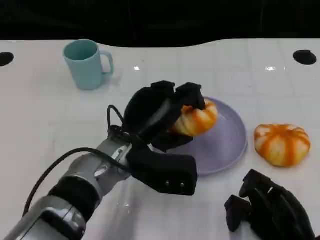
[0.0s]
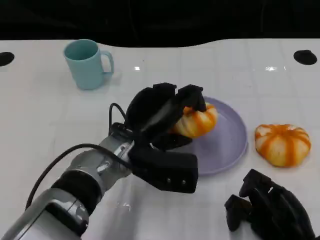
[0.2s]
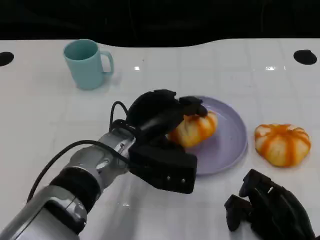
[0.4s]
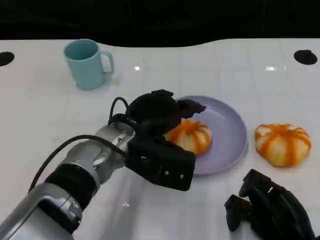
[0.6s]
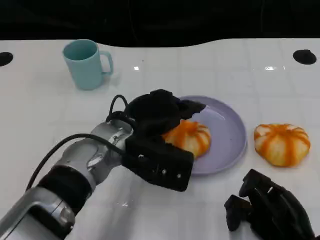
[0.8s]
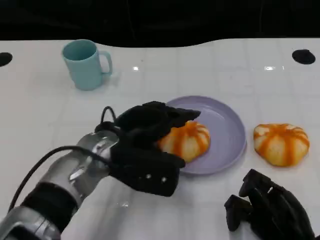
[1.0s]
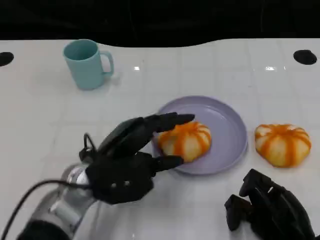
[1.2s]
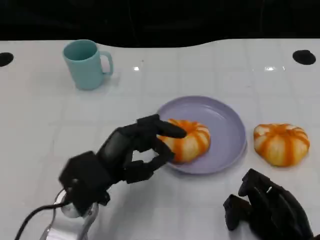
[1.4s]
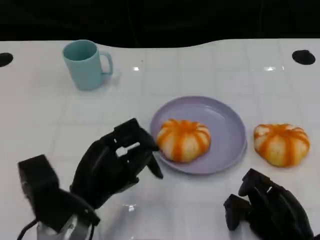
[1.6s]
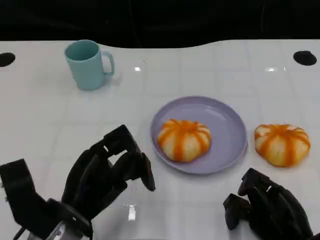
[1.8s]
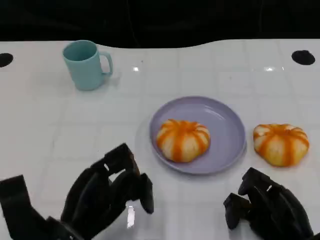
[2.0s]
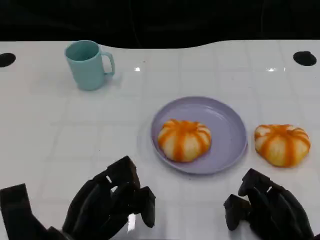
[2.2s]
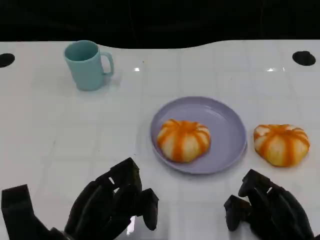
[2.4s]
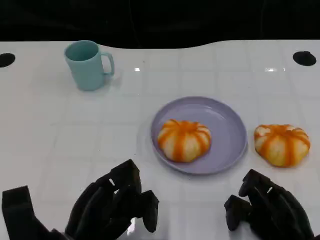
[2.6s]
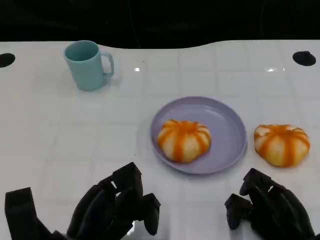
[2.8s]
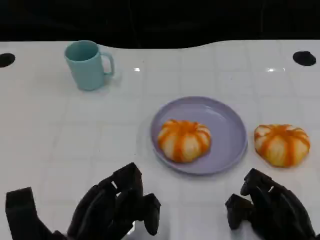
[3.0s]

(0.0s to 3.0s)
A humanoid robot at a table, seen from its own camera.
Task of the whole recording: Grasp the bread from the table and place it into the plate.
0.0s - 1.6s: The left hand moves to the left and backward, approximately 10 cm.
1.6s - 3.0s: There are only small adjustments of the hands.

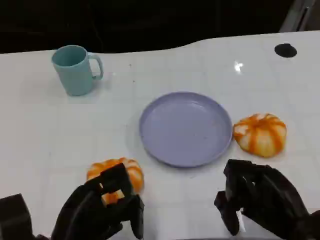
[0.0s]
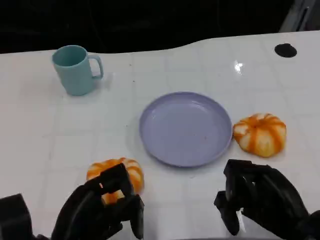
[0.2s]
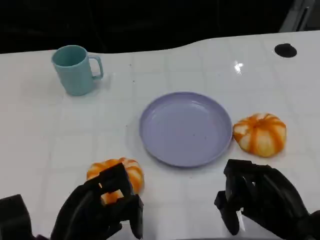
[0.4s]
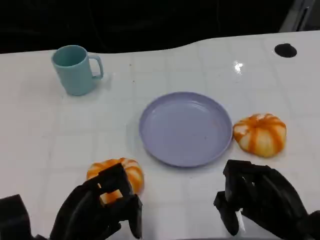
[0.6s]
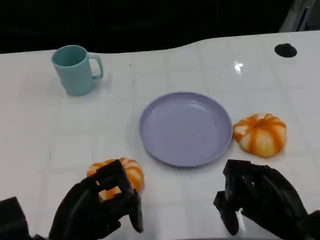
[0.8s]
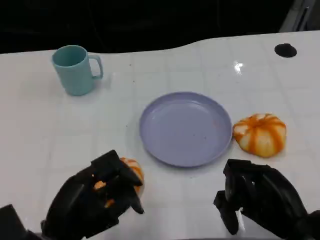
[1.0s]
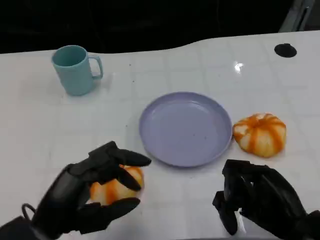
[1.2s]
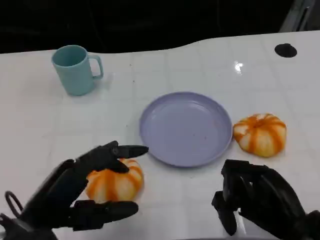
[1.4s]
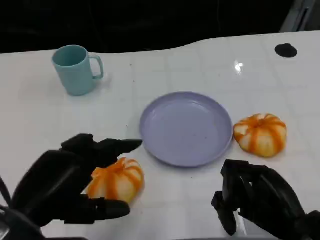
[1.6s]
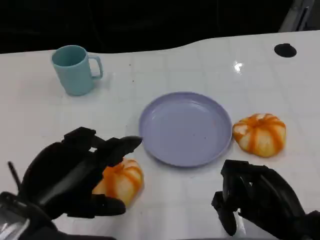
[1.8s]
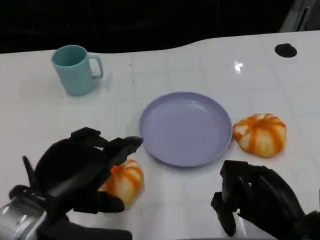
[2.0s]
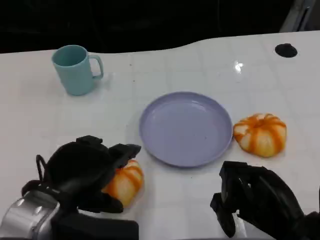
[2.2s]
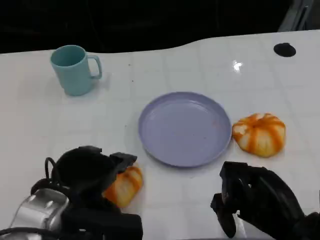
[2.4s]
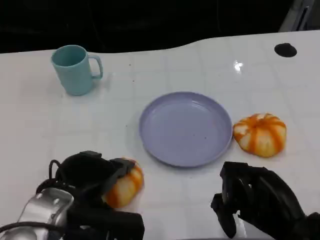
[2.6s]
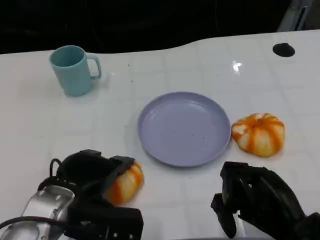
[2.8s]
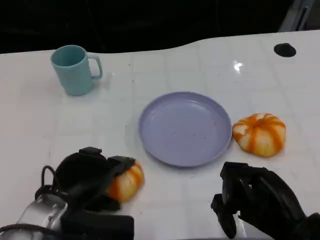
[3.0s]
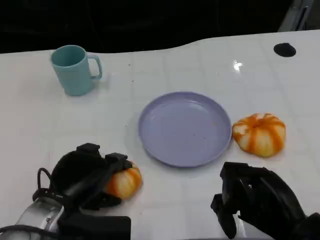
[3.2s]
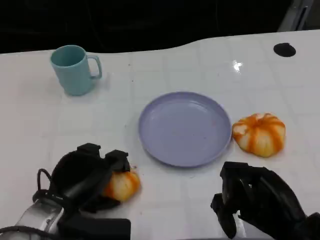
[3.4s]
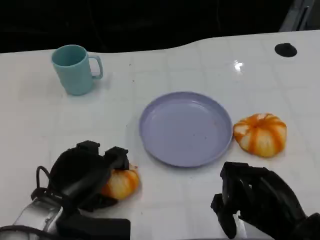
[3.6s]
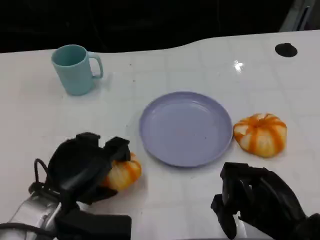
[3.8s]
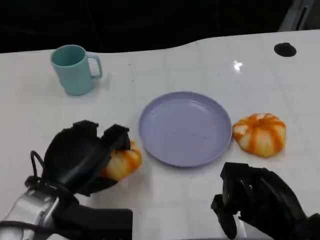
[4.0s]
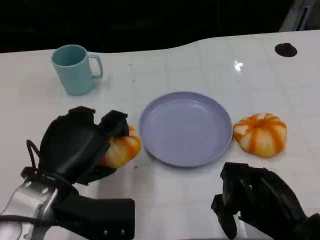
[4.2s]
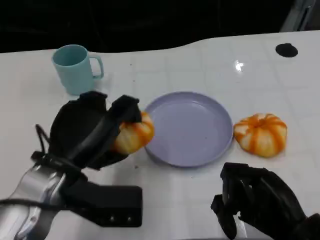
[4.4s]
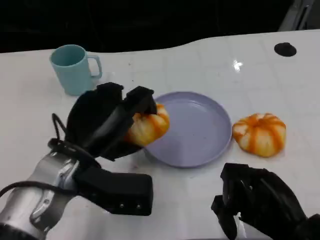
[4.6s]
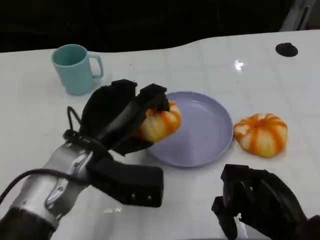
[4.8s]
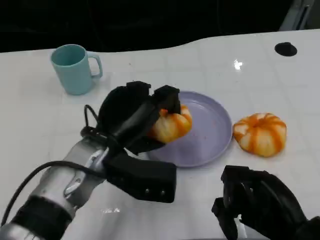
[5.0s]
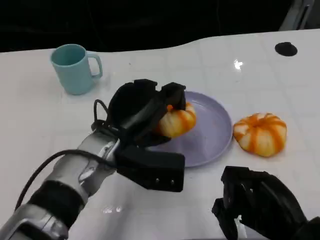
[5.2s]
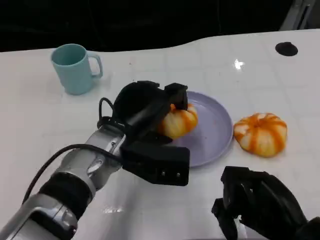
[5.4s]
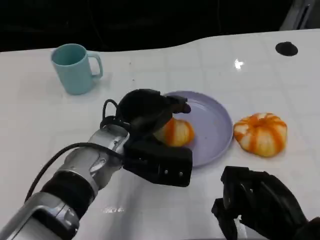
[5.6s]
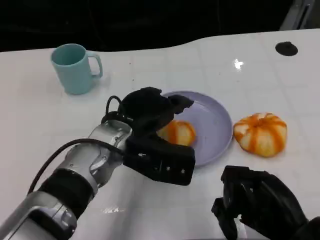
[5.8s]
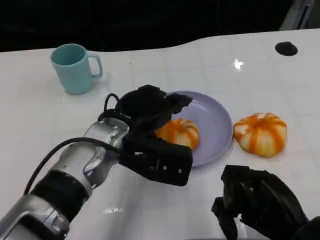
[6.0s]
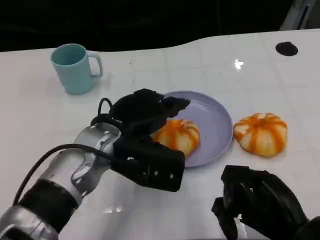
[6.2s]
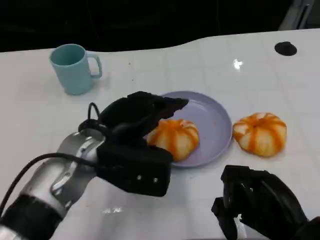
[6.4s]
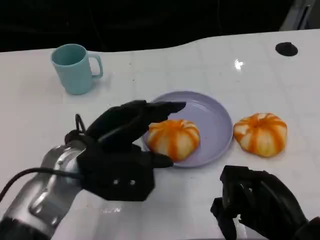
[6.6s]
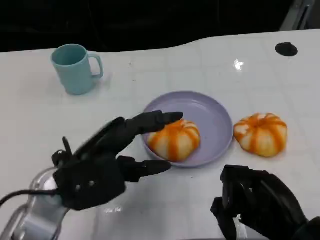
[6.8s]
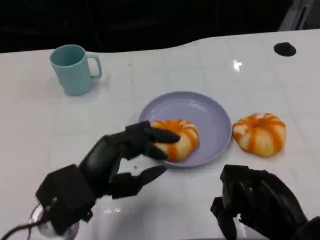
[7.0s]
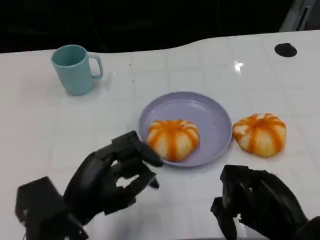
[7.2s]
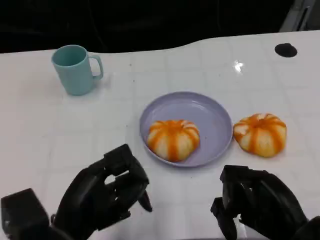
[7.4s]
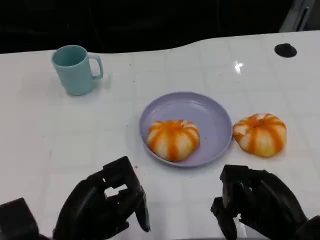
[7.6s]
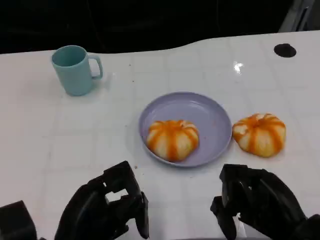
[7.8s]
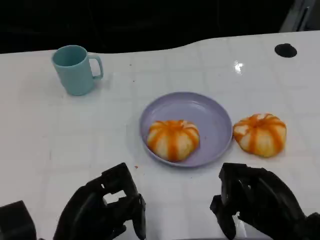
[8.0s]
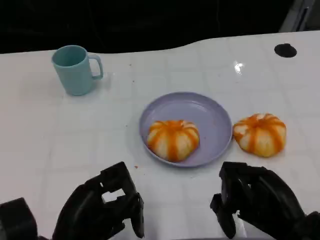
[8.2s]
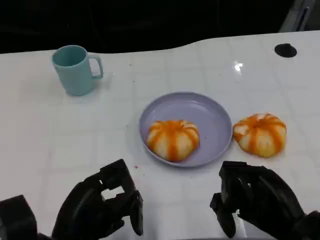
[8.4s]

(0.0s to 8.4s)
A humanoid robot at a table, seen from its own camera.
Task of the whole recording: Grasp the bread from the table and place it into the plate.
0.0s - 1.4s: The left hand heads upward, covering roughly 5 cm.
1.4s - 2.8s: The left hand heads forward, covering about 5 cm.
4.2s - 5.6s: The left hand heads to the right and forward, covering about 10 cm.
5.6s - 7.0s: The left hand travels backward and to the left by roughly 15 cm.
7.0s - 8.4s: The left hand changes place by some 5 cm.

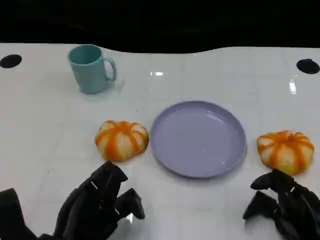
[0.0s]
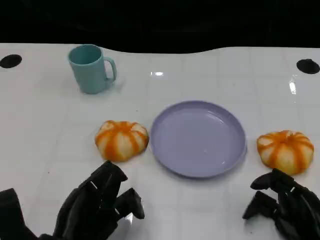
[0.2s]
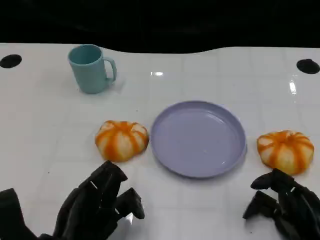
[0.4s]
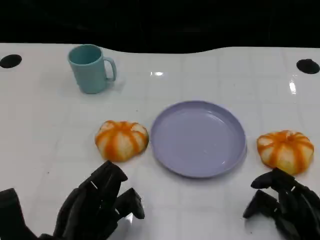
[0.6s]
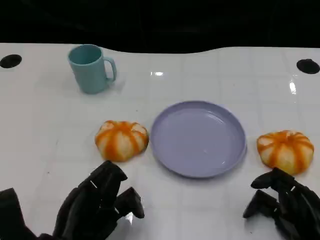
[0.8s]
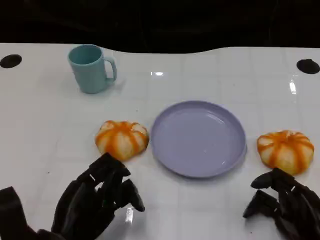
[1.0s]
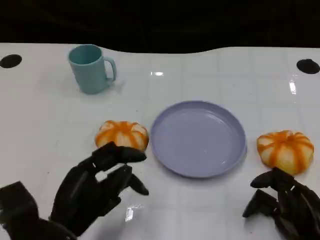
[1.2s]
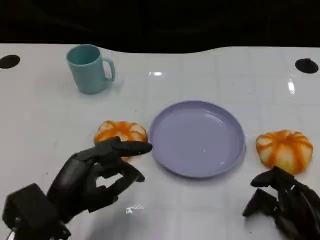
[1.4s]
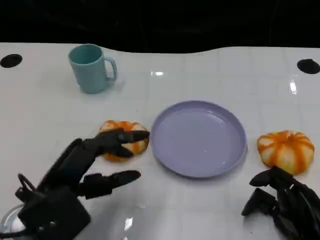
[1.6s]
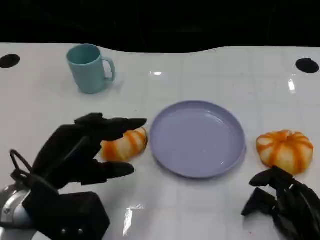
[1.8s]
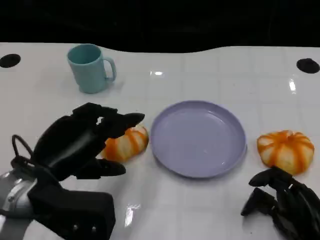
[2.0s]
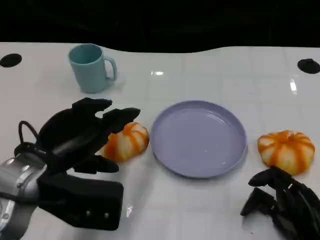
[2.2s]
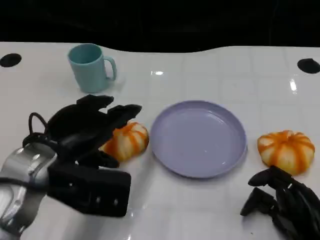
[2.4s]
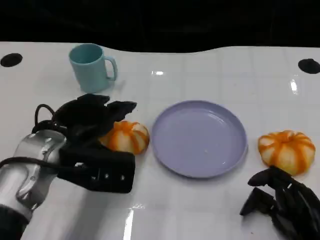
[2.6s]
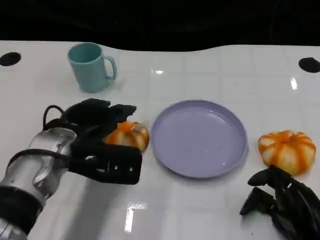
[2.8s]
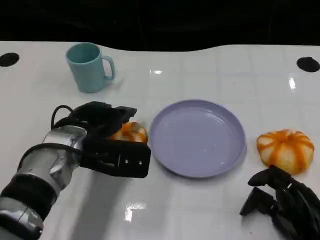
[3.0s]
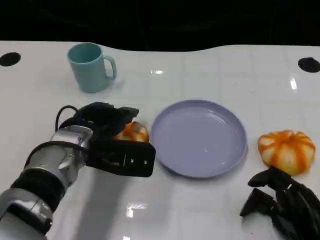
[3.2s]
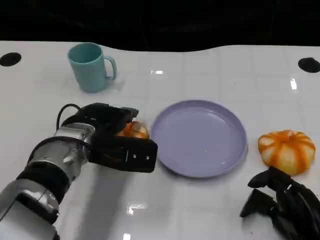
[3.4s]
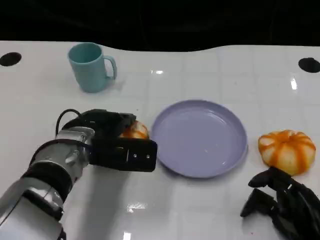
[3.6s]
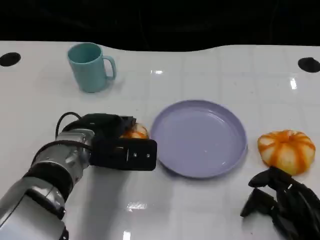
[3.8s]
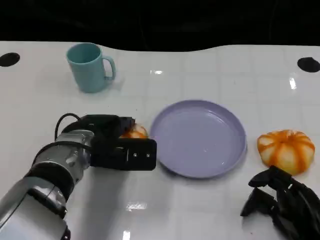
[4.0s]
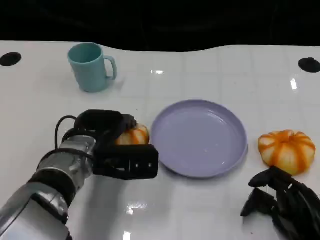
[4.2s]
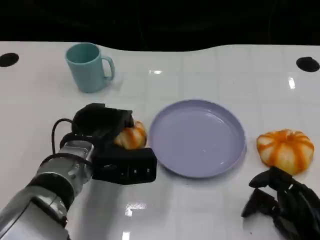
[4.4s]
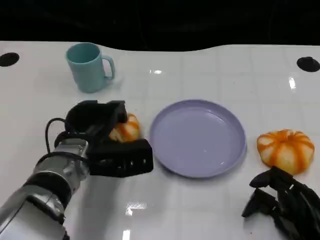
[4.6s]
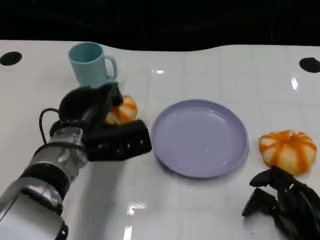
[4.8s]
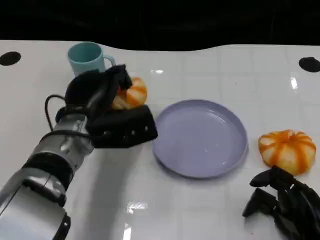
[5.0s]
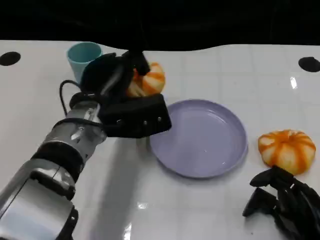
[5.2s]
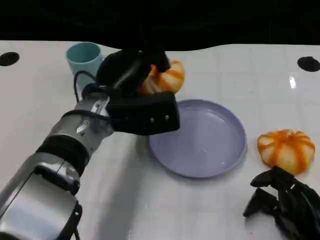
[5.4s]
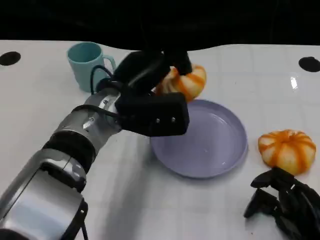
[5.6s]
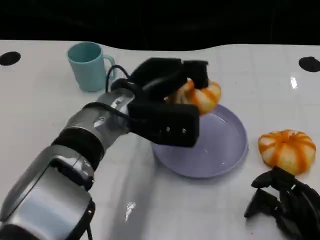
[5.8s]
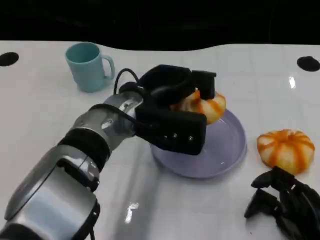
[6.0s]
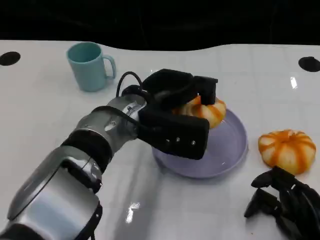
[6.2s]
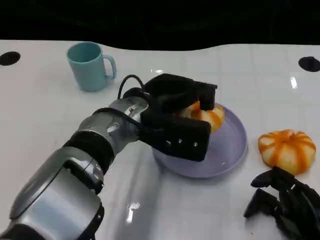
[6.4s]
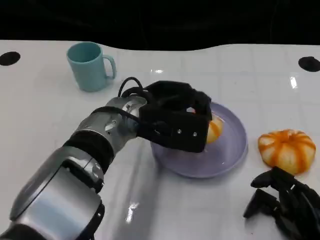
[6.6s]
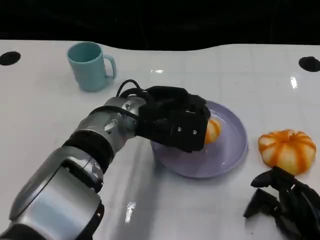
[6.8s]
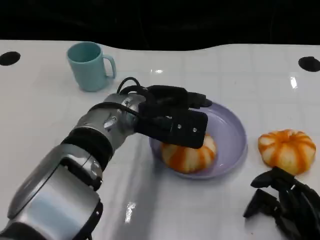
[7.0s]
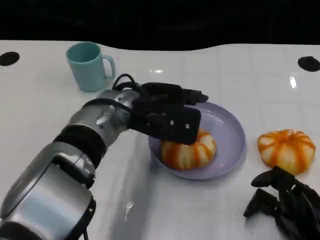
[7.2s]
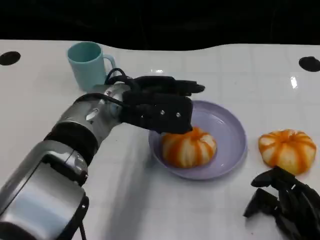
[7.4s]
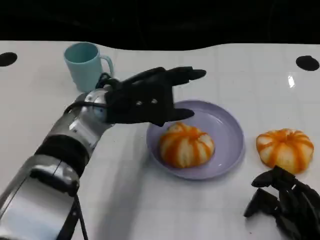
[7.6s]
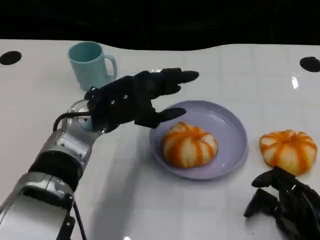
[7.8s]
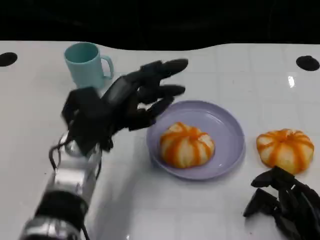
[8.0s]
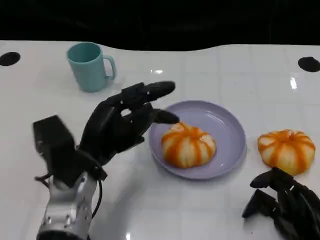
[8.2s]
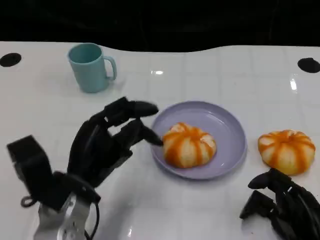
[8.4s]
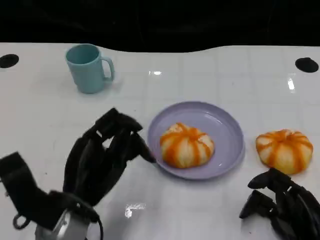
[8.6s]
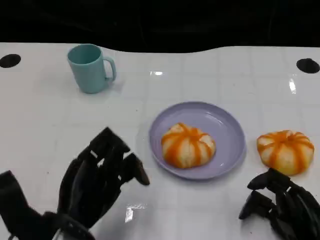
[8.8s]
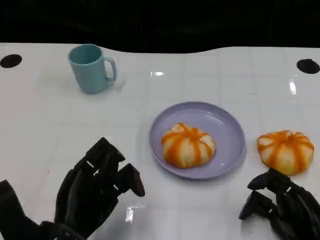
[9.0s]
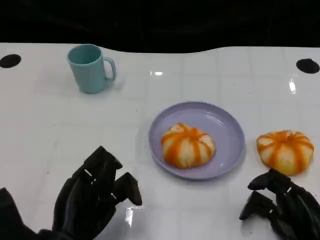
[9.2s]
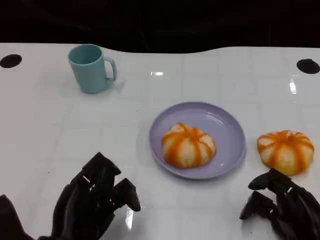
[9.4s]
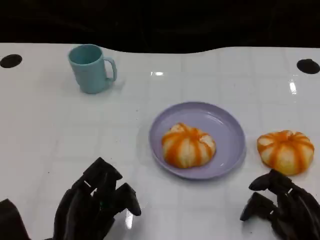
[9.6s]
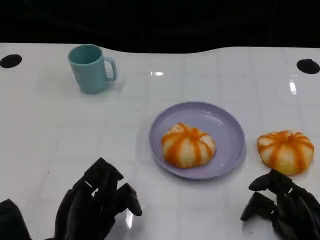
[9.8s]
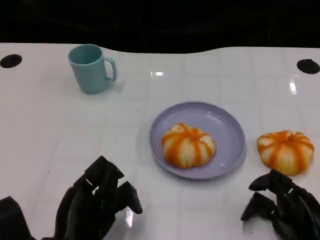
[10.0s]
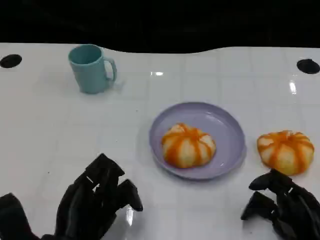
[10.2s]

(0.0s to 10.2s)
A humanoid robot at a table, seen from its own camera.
Task of the whole recording: Grasp the bread from the table and place it into the plate.
1.4s - 3.0s: The left hand travels forward by approximately 10 cm.
3.0s - 4.4s: There are only small adjustments of the hands.
4.4s - 5.8s: The left hand shifts approximately 10 cm upward and to the right.
7.2s - 8.8s: The left hand goes roughly 20 cm backward, to the left and downward.
8.8s - 10.2s: The hands make only small movements.
